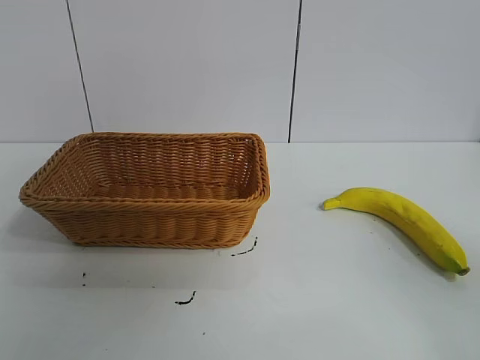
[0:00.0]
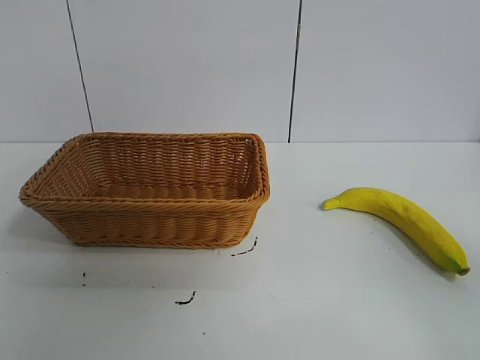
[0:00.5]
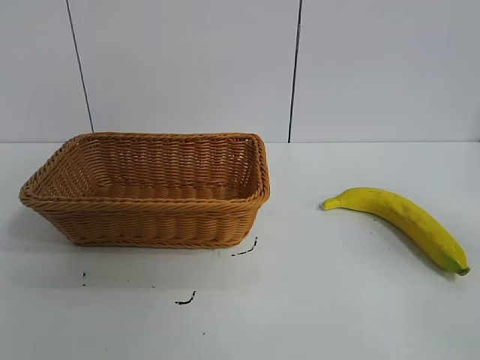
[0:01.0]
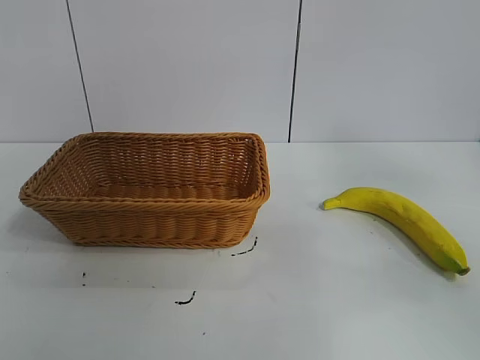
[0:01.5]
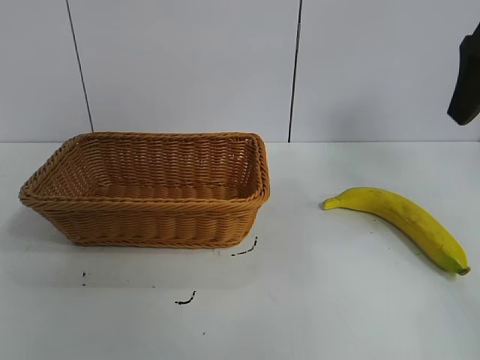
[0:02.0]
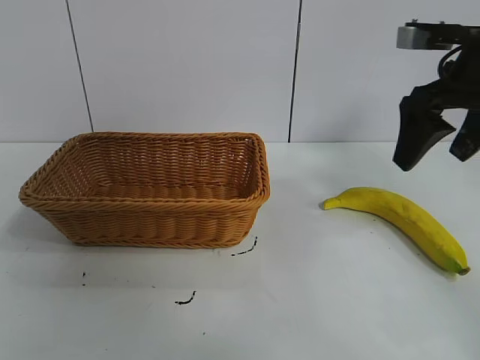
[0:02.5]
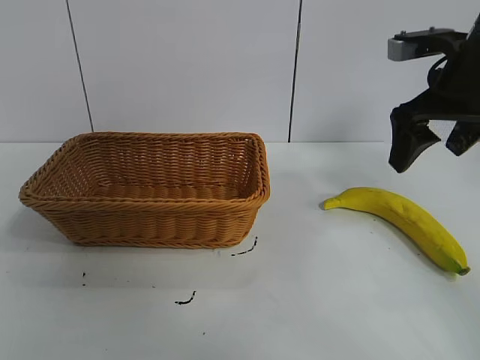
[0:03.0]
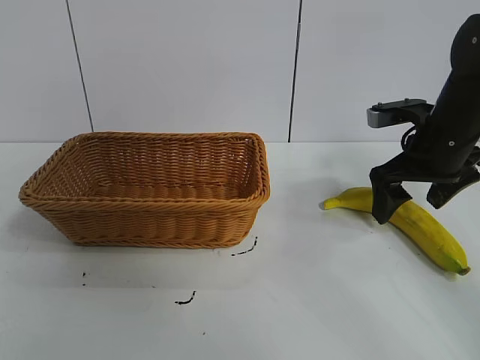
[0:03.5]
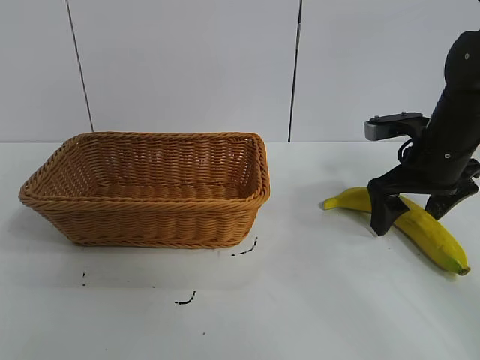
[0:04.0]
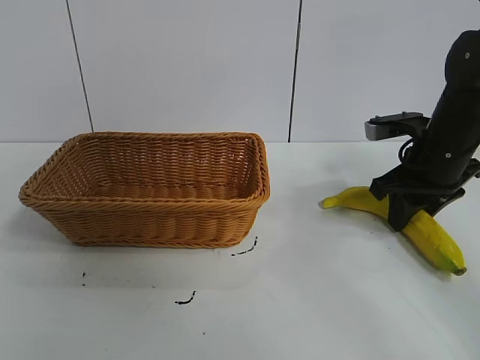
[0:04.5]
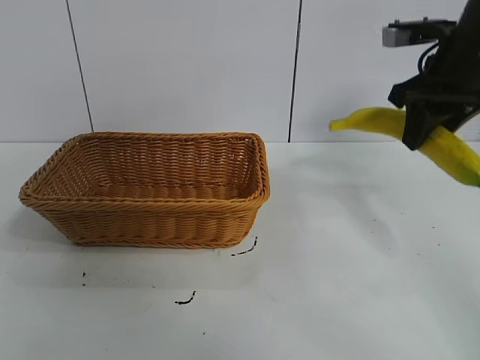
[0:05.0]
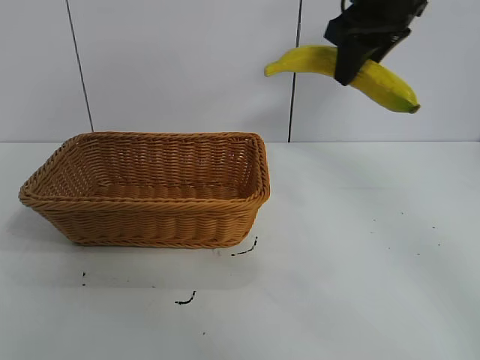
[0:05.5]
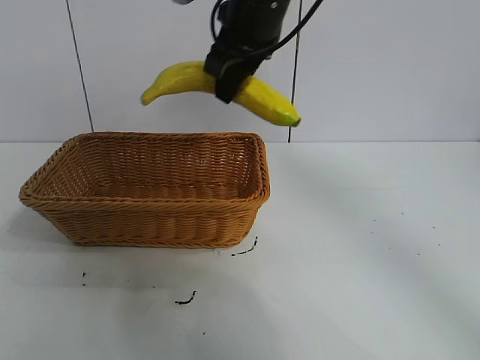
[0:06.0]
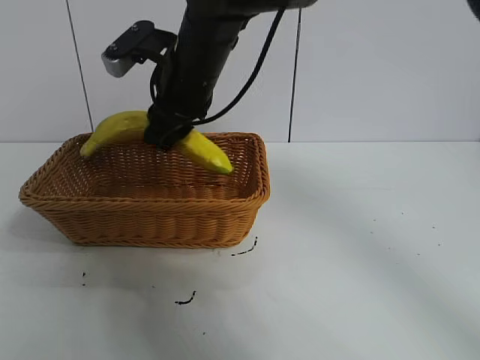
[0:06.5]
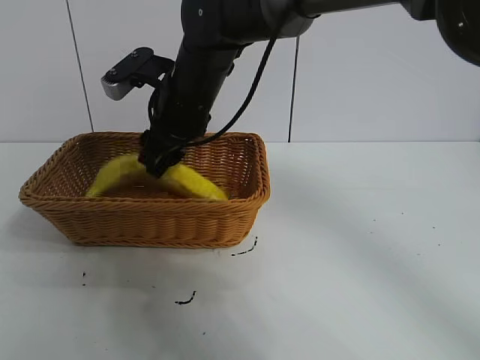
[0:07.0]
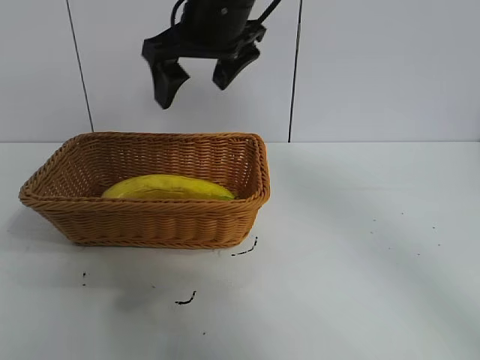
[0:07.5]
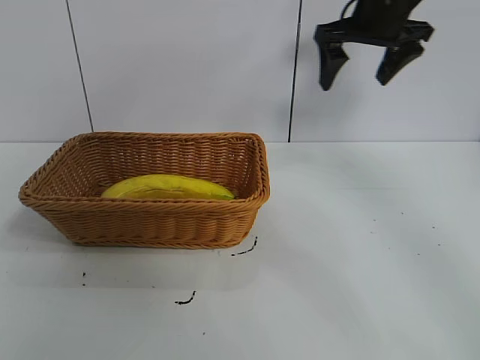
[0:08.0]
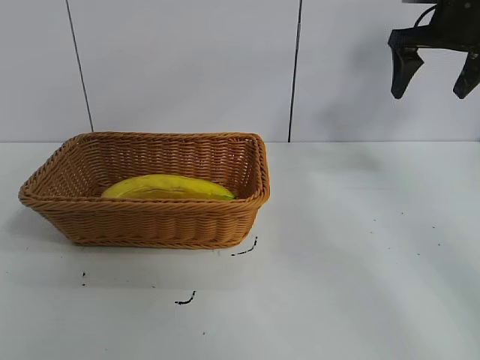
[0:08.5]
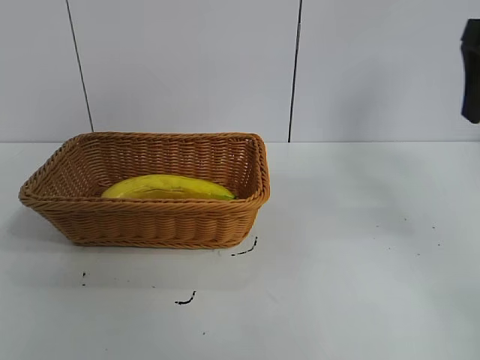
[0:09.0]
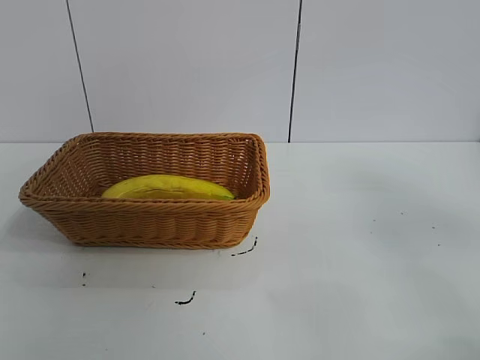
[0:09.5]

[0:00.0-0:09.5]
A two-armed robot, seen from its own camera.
Task of the whole recording: pick up the banana and put it into the basket.
Step, 0:01.0 to 0:04.0: Grasp the banana with right gripper.
Step, 0:04.5 to 0:07.0: Place the banana in the basket with right gripper.
